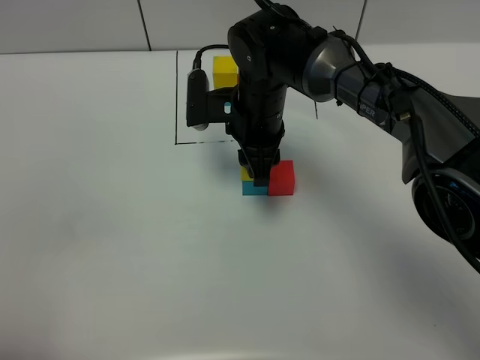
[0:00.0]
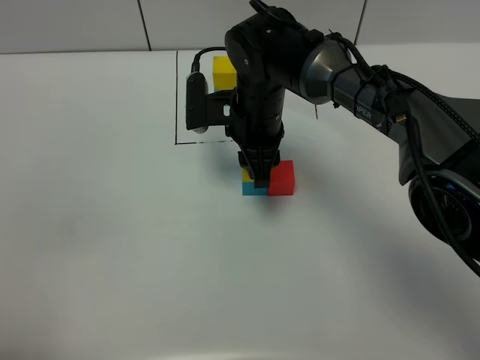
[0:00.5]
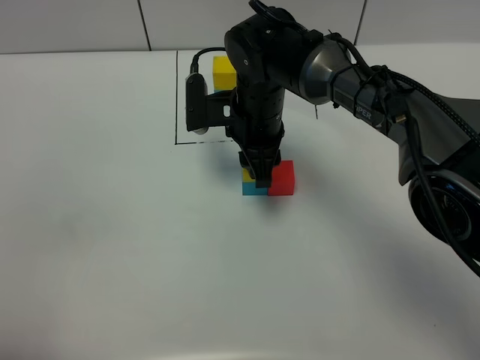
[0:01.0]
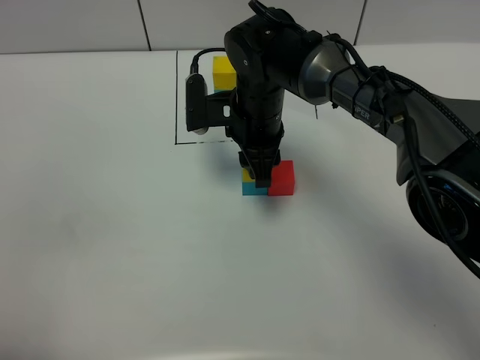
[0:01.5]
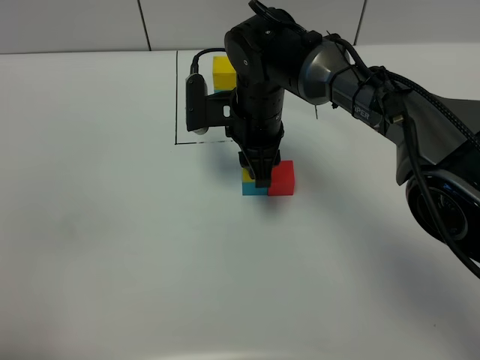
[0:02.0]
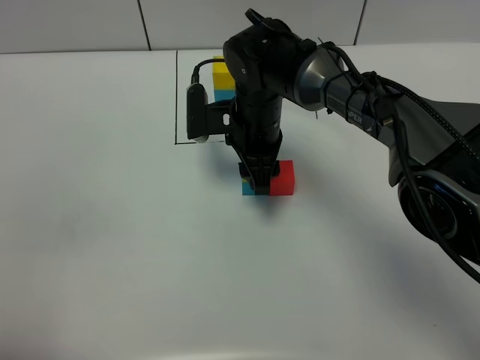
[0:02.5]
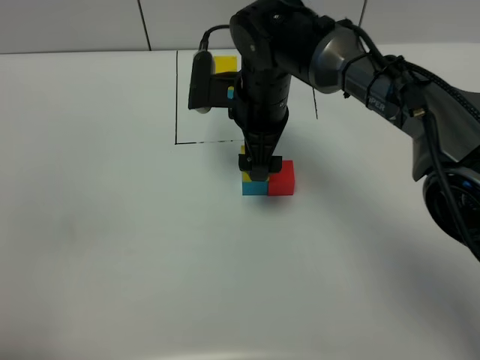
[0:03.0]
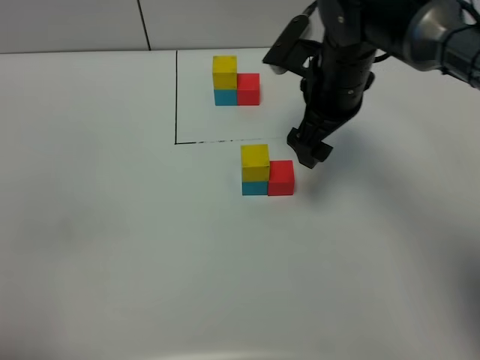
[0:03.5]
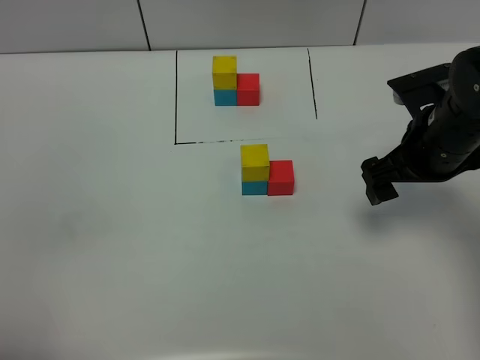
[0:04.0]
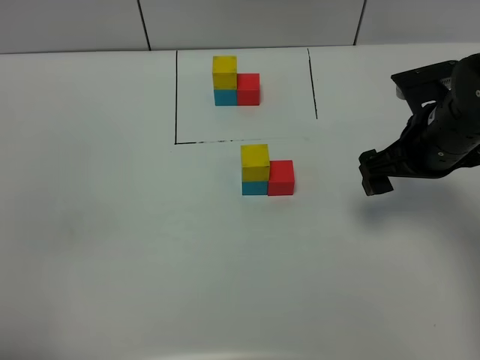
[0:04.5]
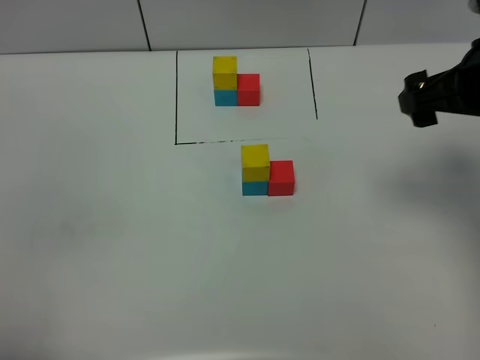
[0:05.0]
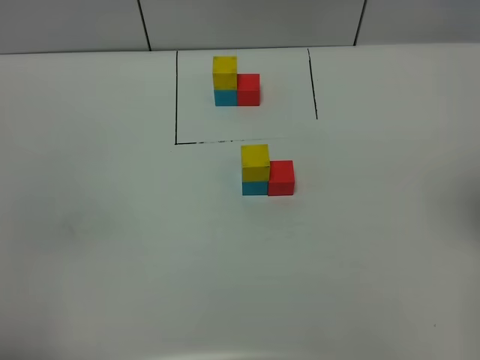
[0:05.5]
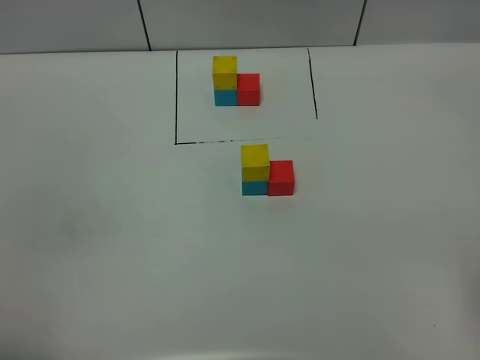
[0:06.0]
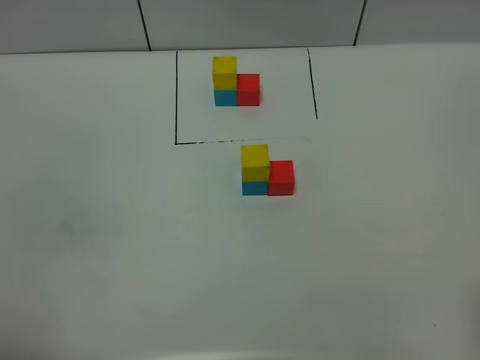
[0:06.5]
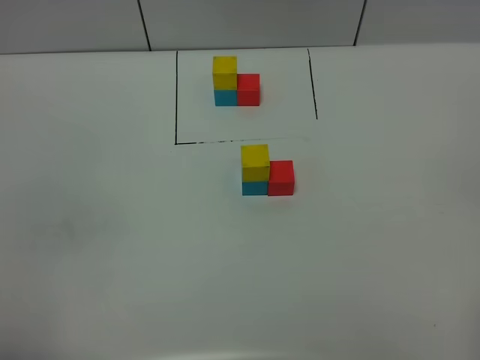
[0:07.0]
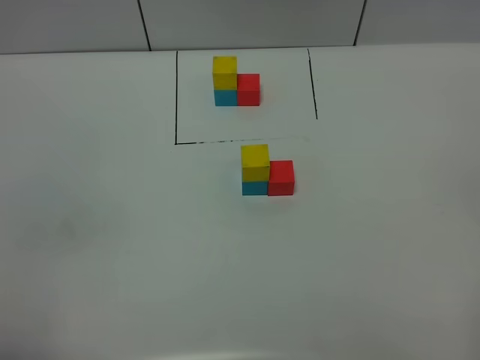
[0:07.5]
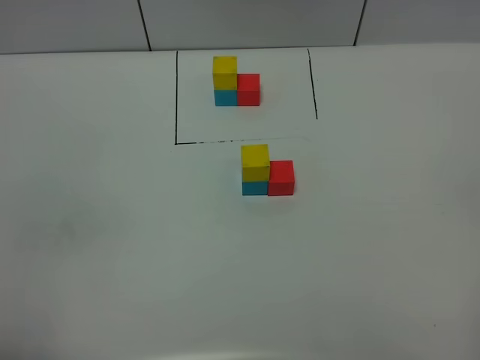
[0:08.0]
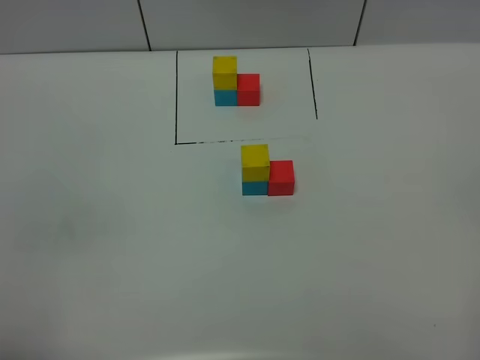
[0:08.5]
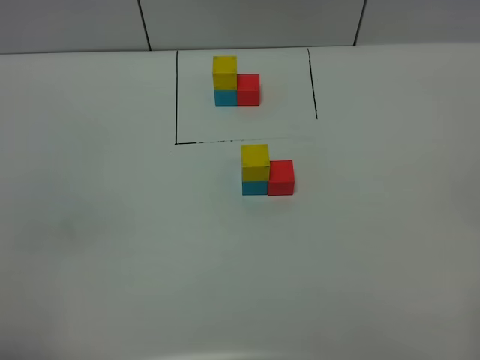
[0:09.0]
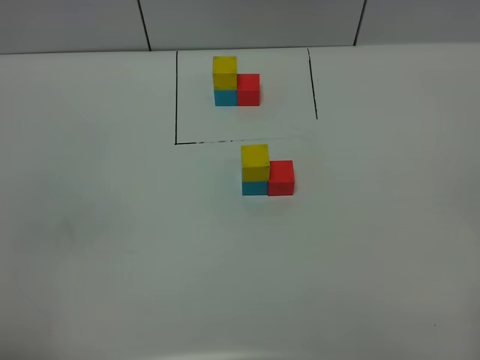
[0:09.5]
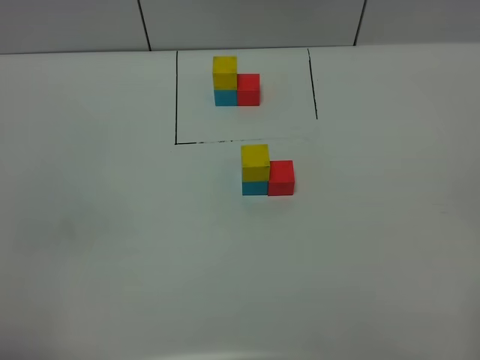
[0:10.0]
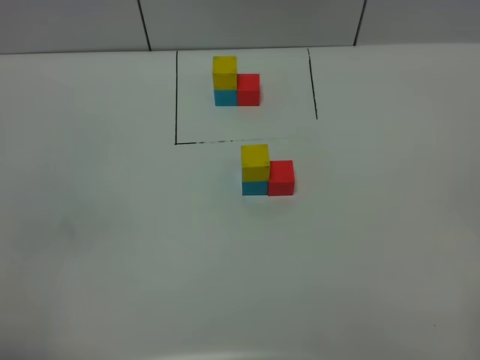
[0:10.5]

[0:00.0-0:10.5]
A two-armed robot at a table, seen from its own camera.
Task of the whole recording: According to the building block template in front, assemble the scattered blocks together.
Step, 0:00.0 to 0:02.5: Put the yellow build block on the blue build block.
0:00.0 to 0:02.0: The two grippers keep their place.
0:02.0 to 0:04.0: The right gripper shifts about 20 cm to the right, and opens its fingers.
0:04.0 to 0:06.5: The right gripper travels backward and upward by about 30 cm.
